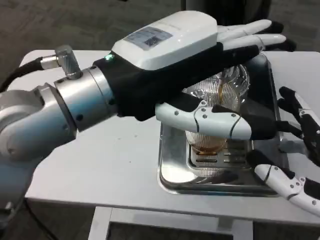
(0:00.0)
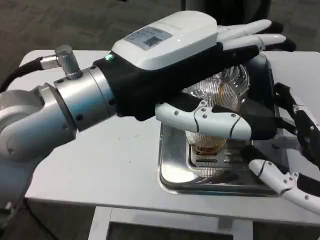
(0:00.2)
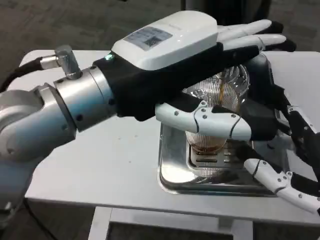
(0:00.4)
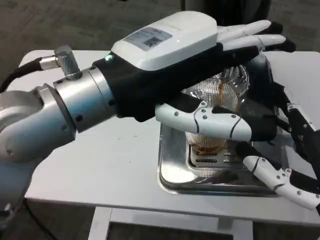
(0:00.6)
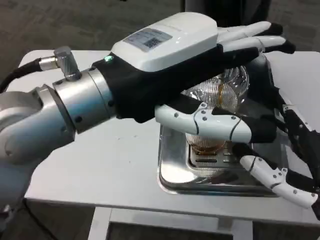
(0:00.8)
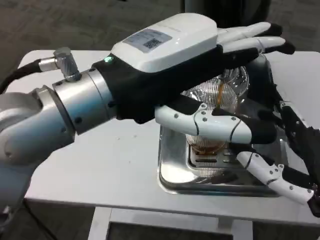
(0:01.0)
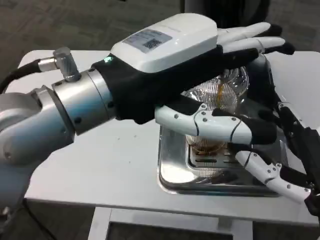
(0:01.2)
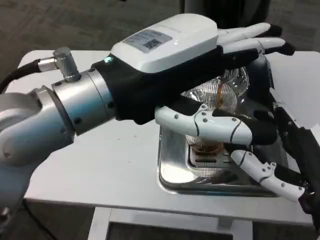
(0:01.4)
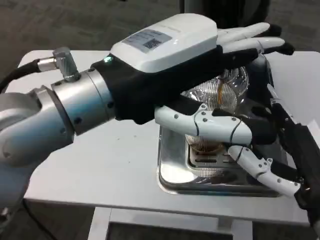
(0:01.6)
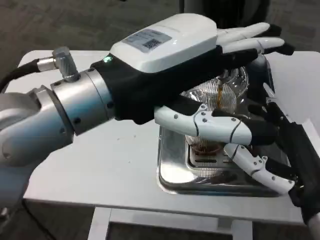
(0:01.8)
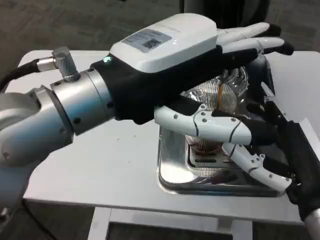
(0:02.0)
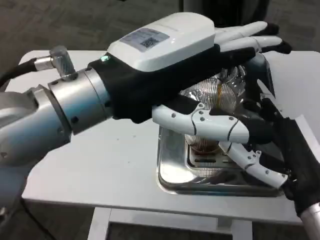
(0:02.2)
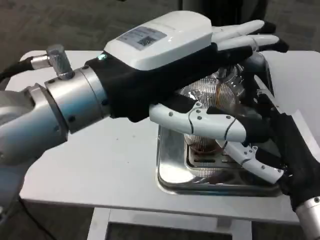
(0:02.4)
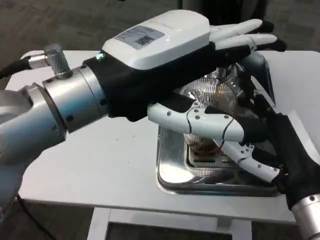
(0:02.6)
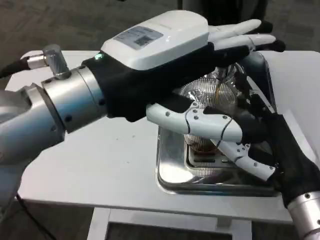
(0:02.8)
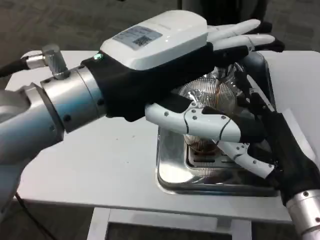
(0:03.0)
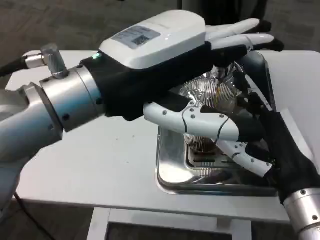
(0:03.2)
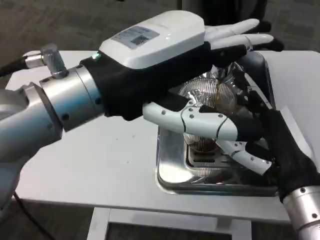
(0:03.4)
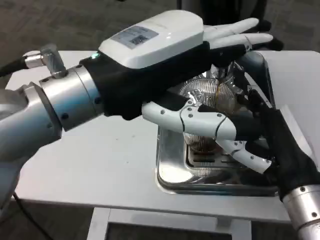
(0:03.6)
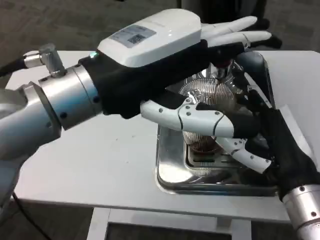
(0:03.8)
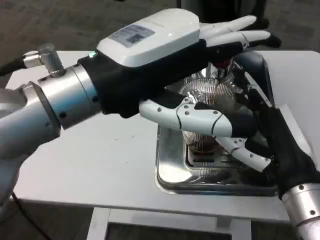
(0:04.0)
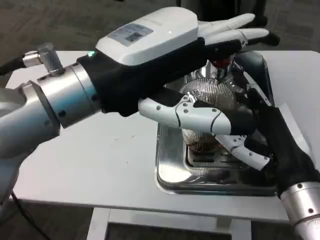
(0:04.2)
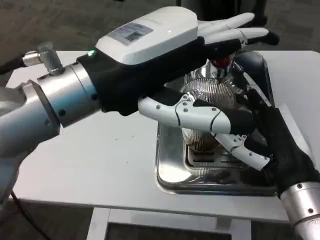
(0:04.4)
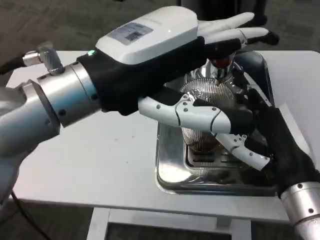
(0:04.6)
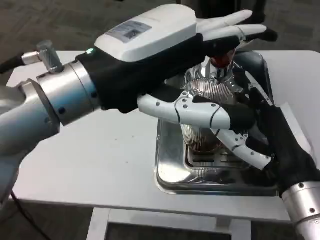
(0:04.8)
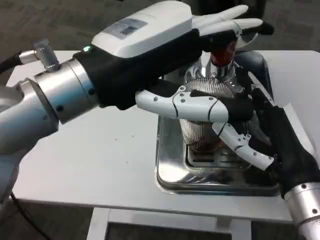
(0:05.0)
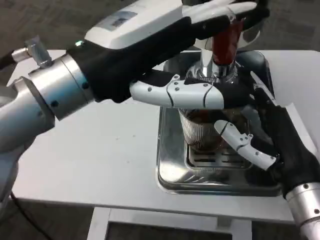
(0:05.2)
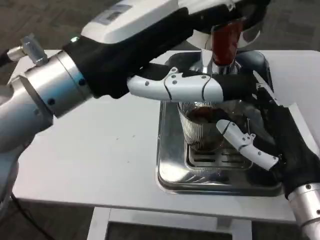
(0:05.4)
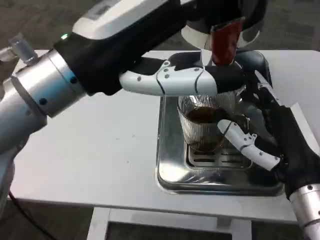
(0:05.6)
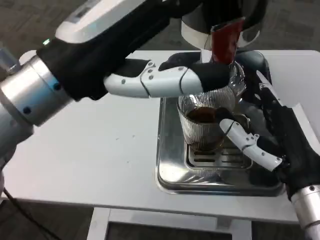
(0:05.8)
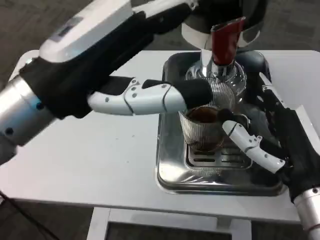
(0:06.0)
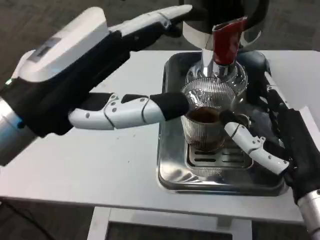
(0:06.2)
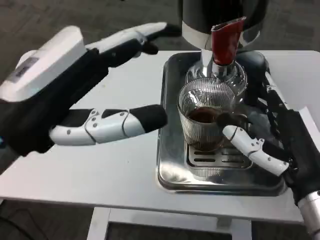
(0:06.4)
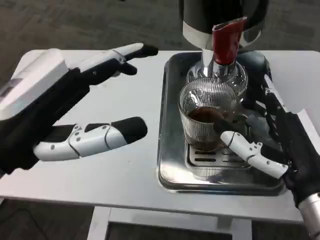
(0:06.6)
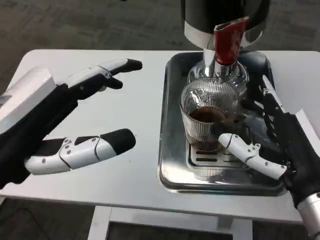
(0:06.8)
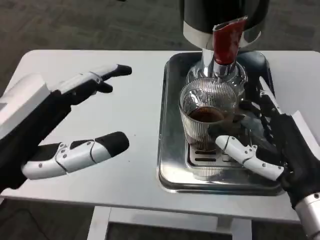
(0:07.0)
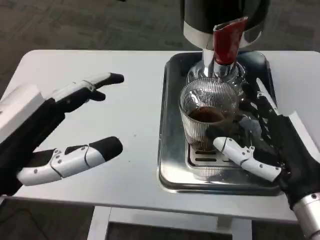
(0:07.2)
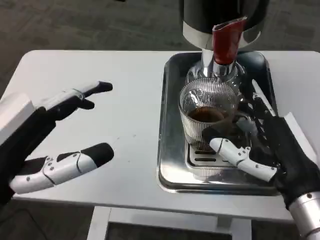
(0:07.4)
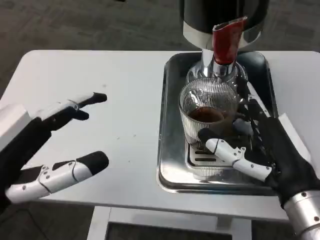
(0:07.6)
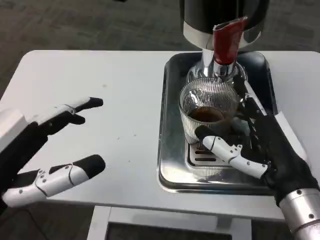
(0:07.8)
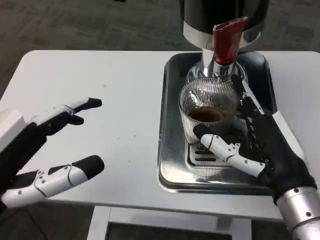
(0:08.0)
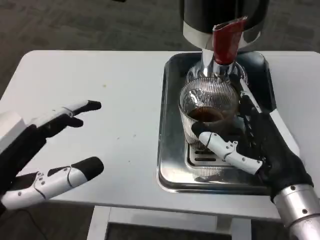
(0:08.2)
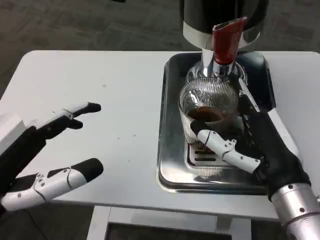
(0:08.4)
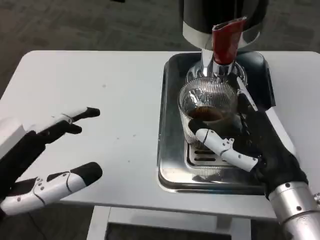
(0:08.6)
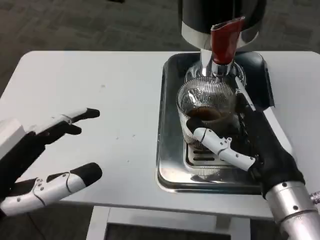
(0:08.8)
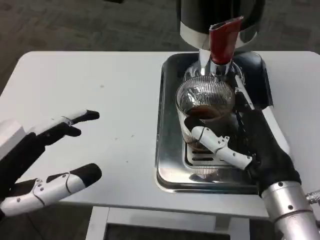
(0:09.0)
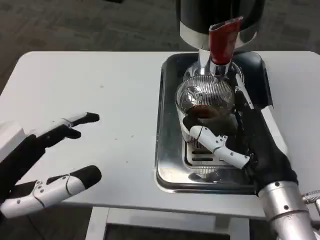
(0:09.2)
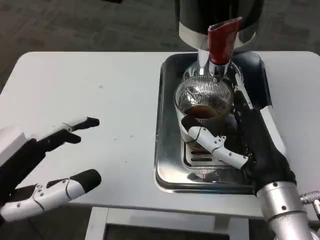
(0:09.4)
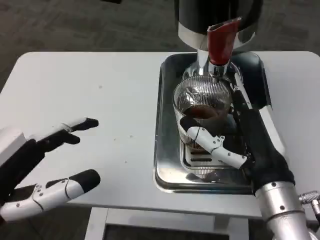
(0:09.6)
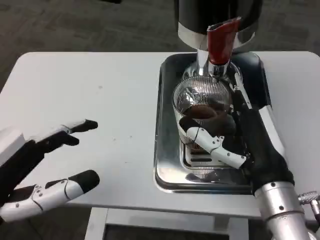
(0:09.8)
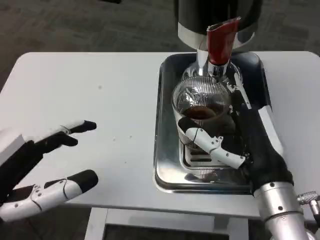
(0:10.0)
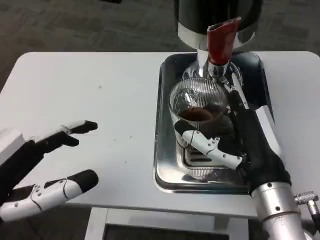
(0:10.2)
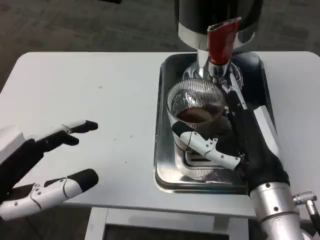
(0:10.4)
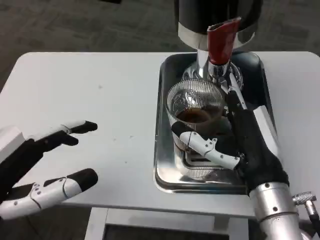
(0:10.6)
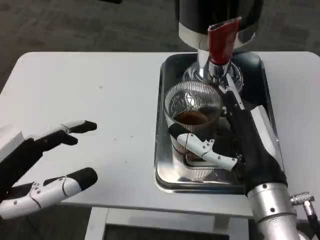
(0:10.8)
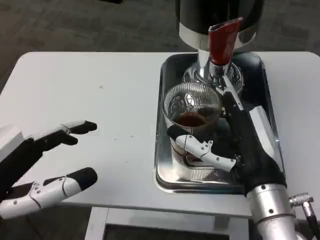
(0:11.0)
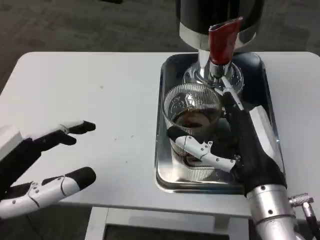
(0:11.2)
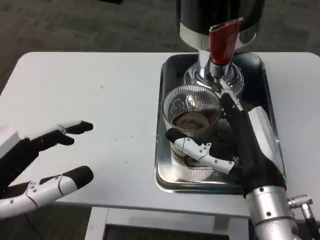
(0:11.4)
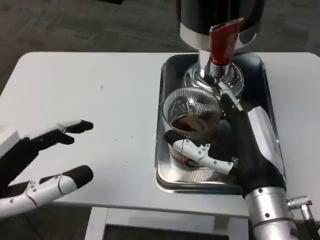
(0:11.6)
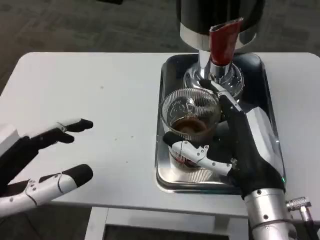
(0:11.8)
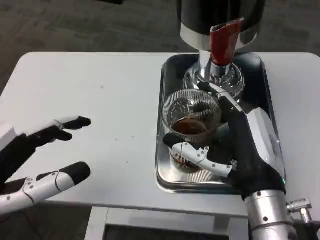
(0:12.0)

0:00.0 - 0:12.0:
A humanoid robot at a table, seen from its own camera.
Task of the whole recording: Grasp the cup under the faucet to collect the drink, then remove the cup.
0:06.0 - 0:07.6: The left hand goes roughly 10 cm downward, to the left and backward.

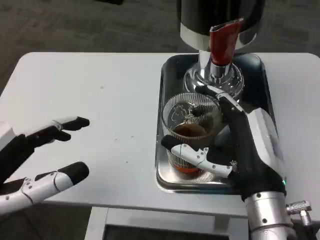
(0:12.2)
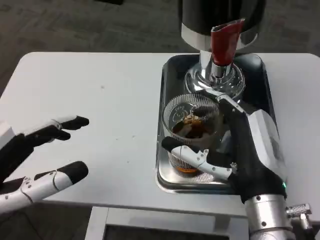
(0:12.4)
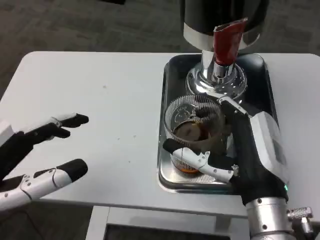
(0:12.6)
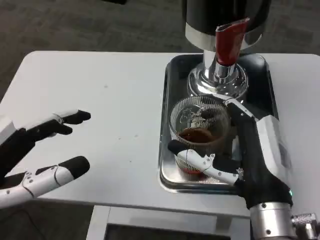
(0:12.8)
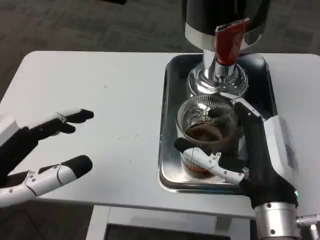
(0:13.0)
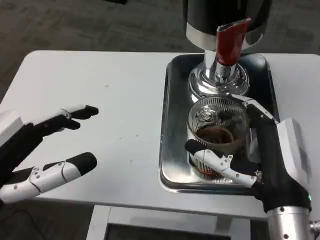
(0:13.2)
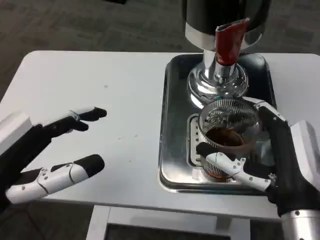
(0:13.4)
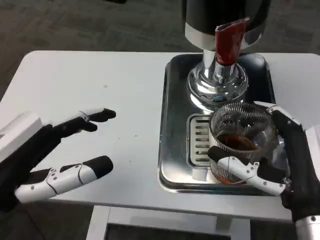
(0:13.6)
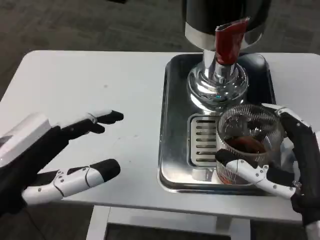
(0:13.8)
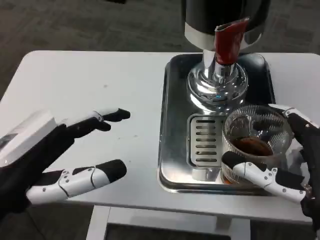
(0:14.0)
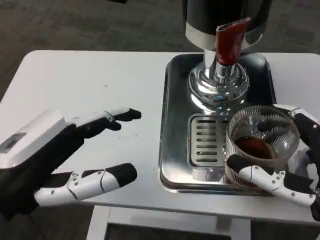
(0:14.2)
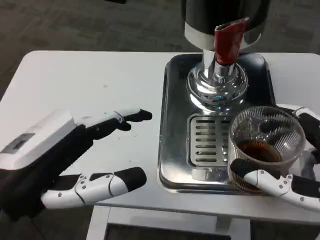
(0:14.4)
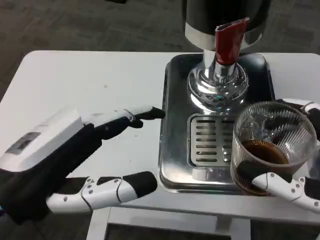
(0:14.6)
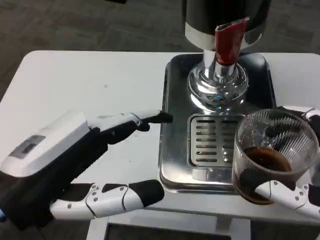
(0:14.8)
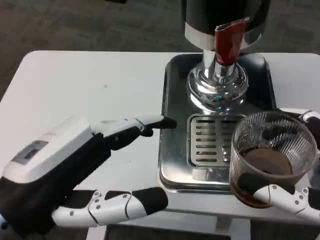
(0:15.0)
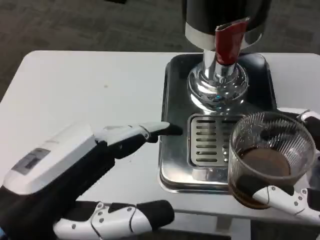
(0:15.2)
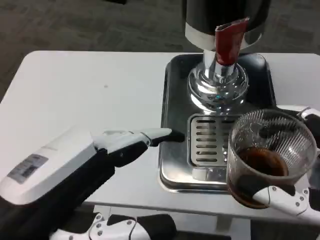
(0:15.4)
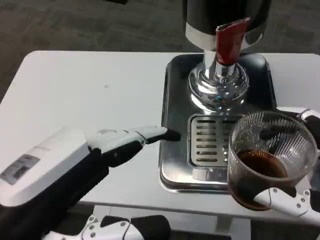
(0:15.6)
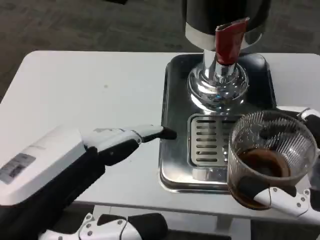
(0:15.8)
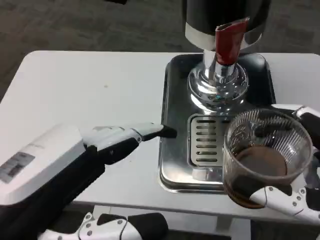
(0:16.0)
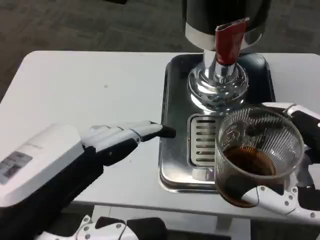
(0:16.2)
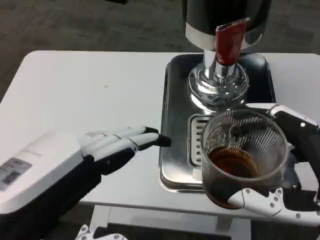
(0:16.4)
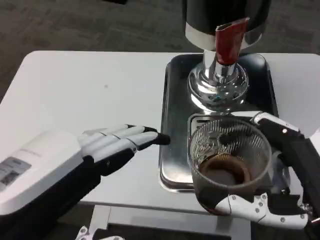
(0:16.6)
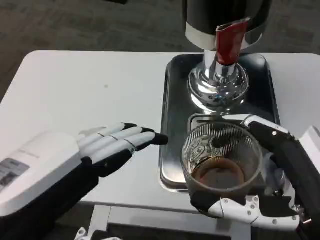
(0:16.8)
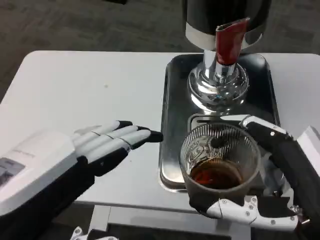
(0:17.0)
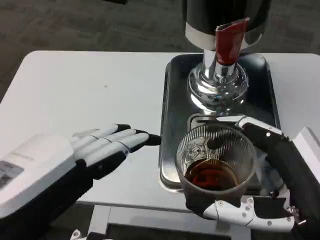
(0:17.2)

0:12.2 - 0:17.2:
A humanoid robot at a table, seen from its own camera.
Task of the whole recording: Grasp the cup under the faucet to collect the drink, then remove the cup.
0:12.2 - 0:13.8: The right hand shifts approximately 5 cm to the right.
0:13.8 - 0:15.6: The left hand shifts by some 5 cm. The right hand moves backward, roughly 5 cm.

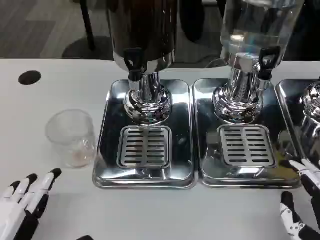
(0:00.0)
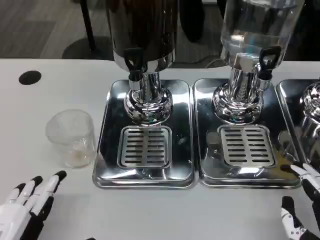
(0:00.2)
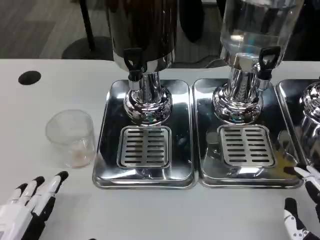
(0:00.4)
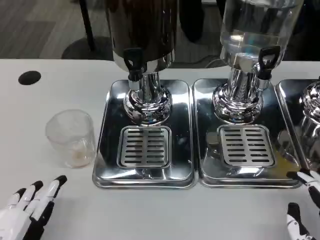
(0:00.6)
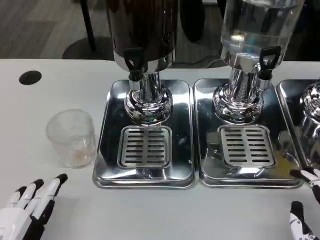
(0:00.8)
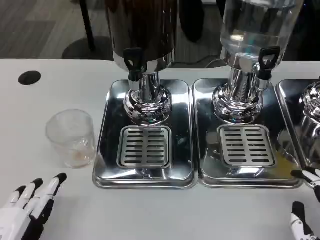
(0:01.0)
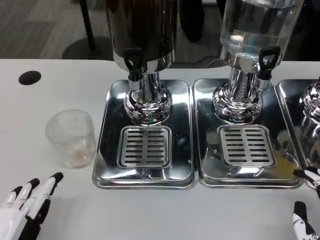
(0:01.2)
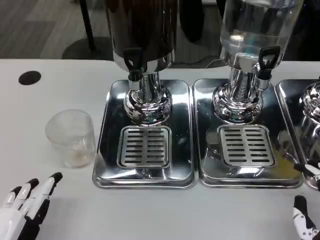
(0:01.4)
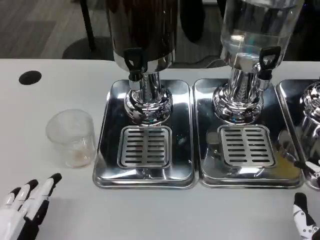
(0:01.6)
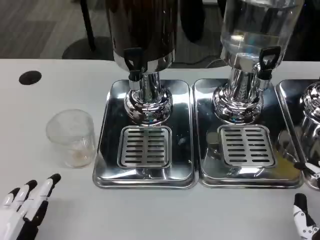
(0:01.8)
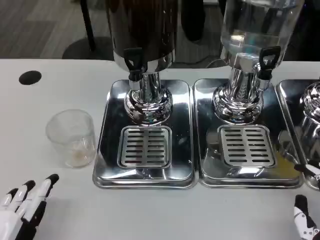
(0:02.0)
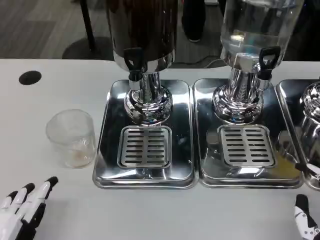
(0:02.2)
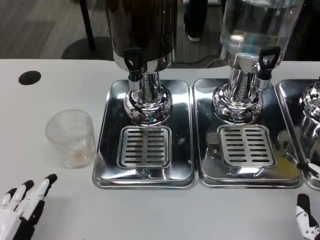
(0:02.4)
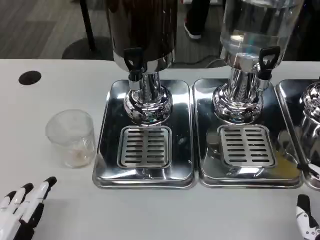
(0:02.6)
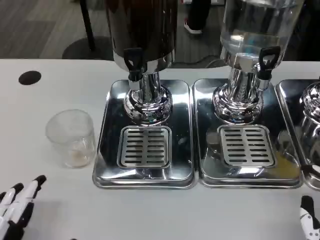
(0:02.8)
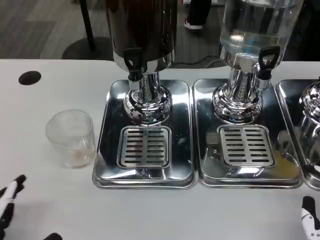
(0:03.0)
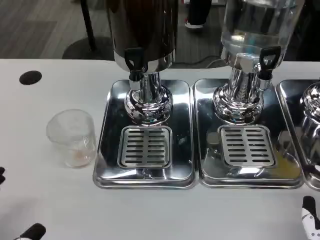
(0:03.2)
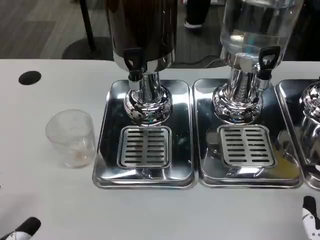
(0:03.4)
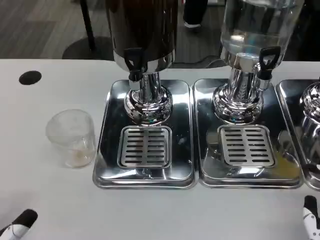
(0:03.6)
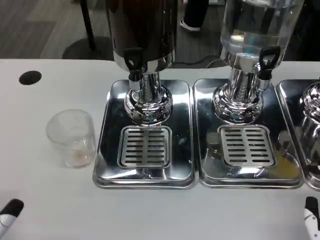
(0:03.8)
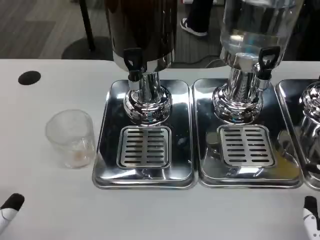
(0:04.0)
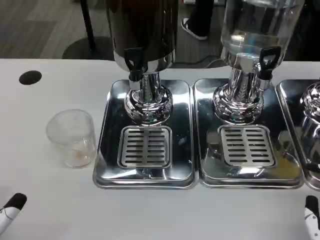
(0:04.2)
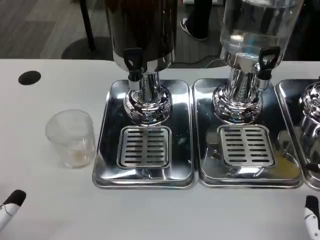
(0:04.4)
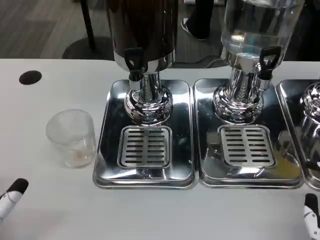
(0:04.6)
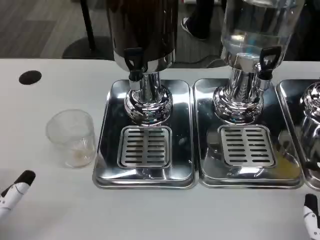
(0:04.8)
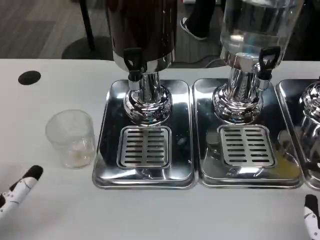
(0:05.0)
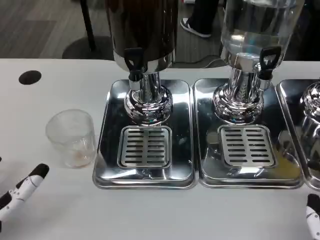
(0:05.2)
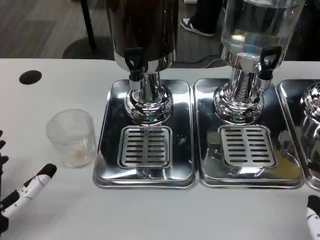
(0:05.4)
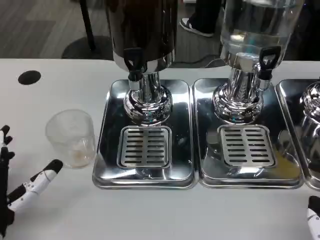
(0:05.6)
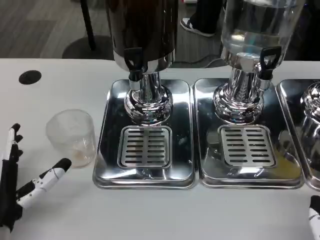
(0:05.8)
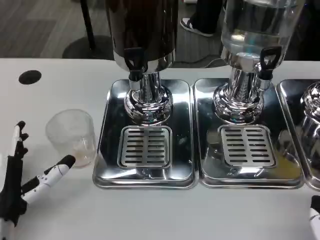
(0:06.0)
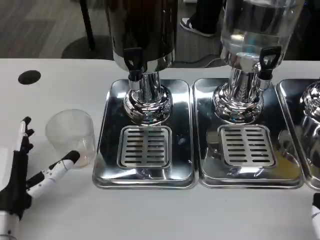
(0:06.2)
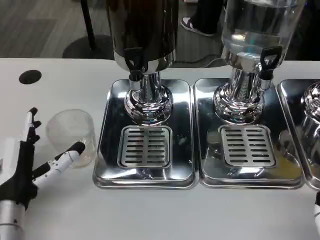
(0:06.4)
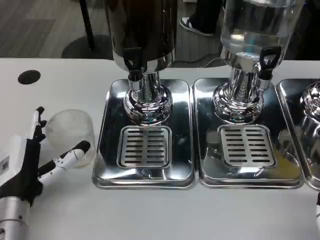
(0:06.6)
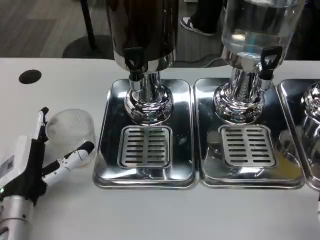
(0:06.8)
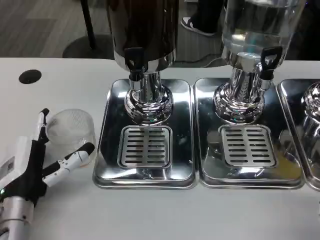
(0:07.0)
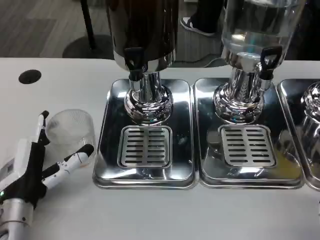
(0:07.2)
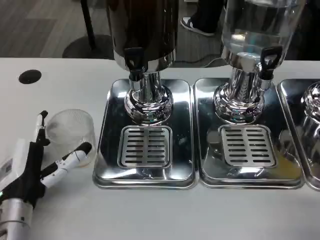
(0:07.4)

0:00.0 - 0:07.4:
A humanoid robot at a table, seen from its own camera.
Task of the whole recording: Grasp the cup under the faucet to collect the drink, then remove the cup.
0:00.0 - 0:03.0: The hands make only small movements.
0:04.4 - 0:06.0: The left hand is displaced forward by about 10 cm.
0:06.0 - 0:07.4: The hands stay close to where they were, moving slightly.
